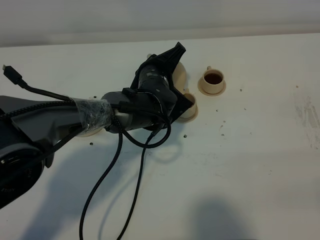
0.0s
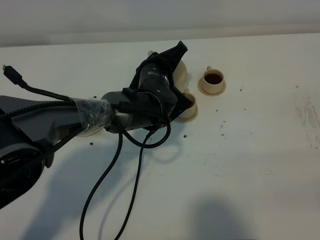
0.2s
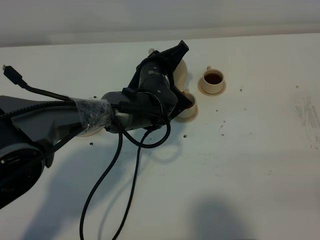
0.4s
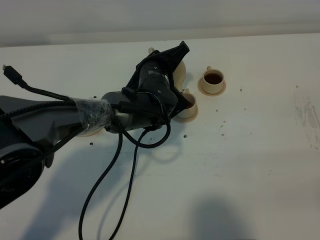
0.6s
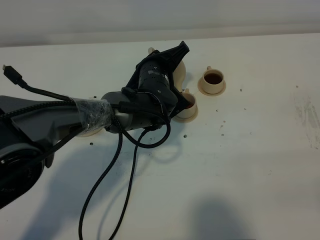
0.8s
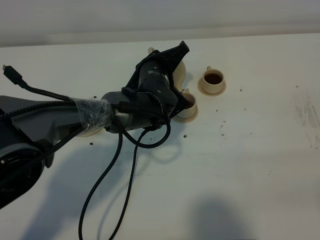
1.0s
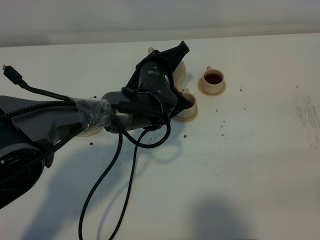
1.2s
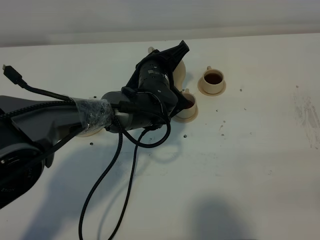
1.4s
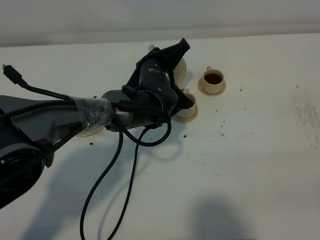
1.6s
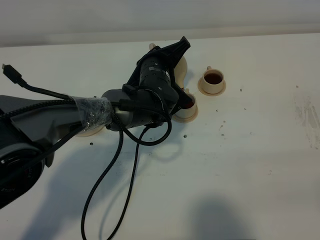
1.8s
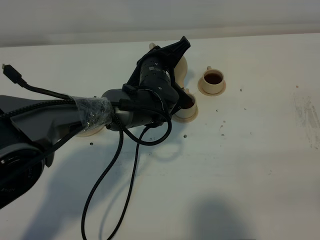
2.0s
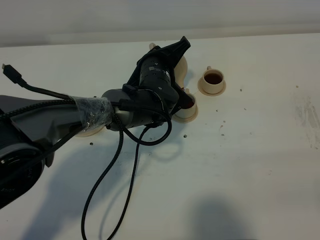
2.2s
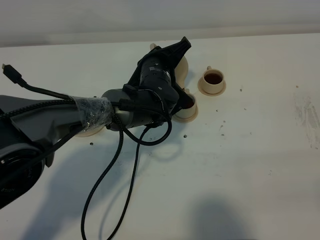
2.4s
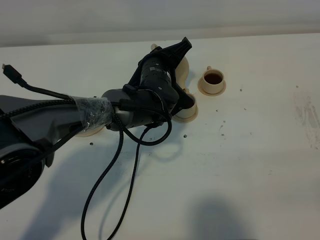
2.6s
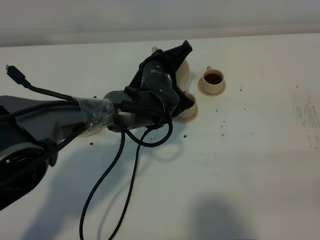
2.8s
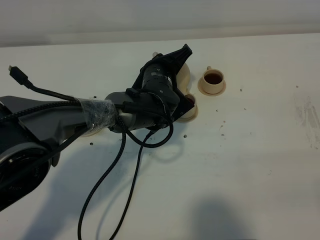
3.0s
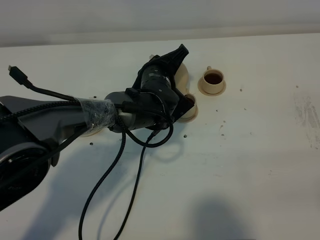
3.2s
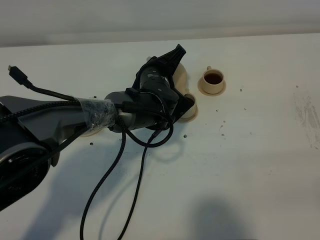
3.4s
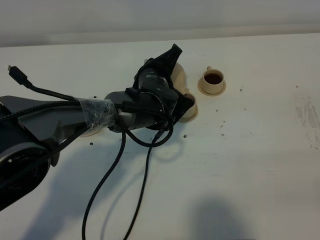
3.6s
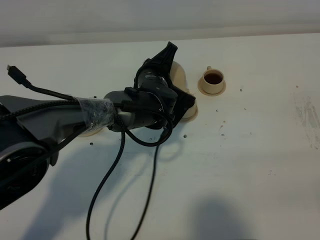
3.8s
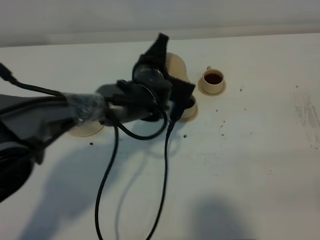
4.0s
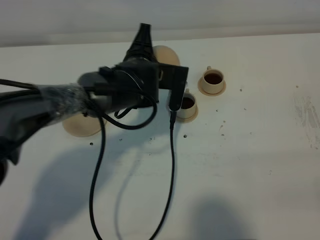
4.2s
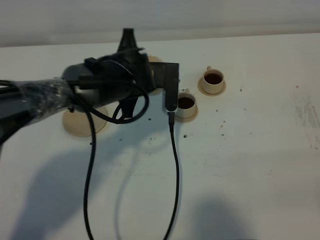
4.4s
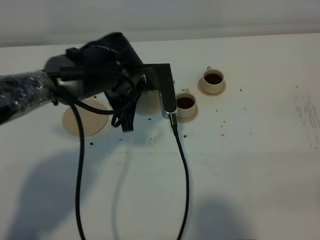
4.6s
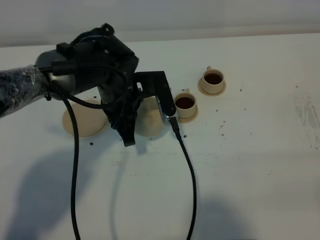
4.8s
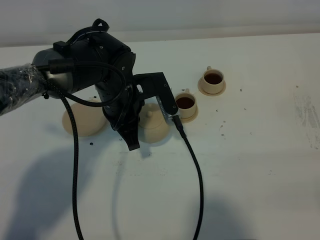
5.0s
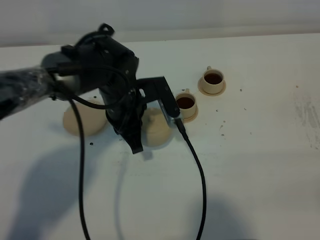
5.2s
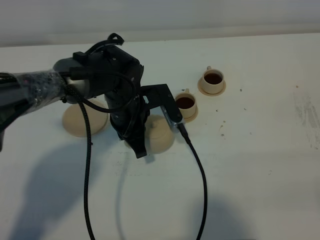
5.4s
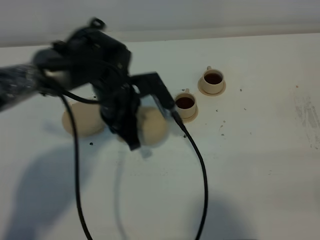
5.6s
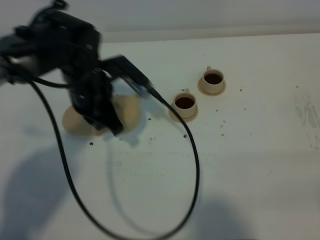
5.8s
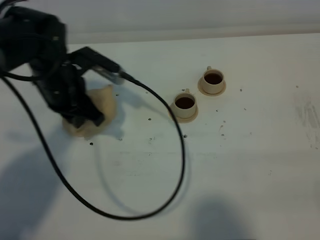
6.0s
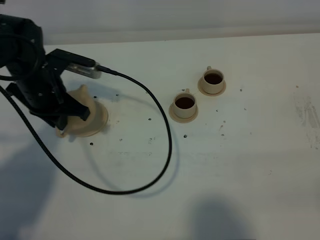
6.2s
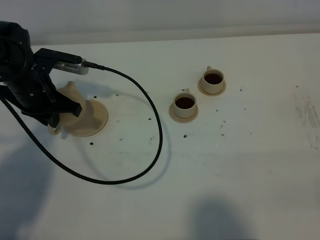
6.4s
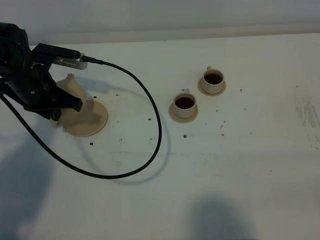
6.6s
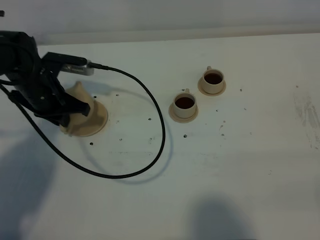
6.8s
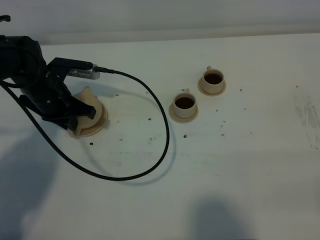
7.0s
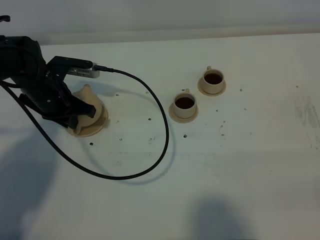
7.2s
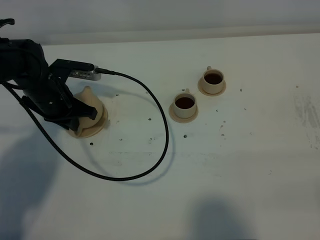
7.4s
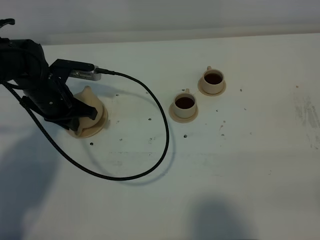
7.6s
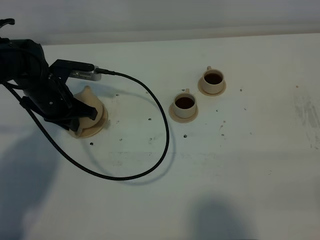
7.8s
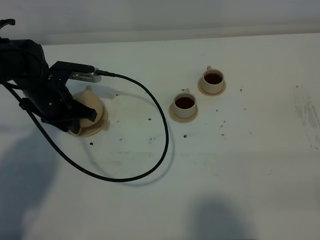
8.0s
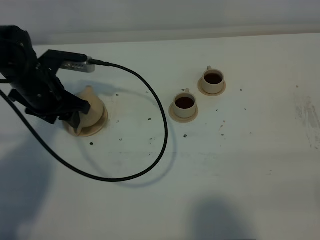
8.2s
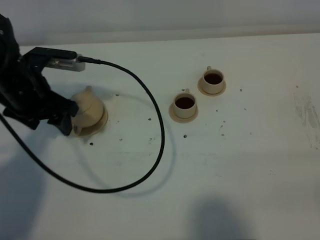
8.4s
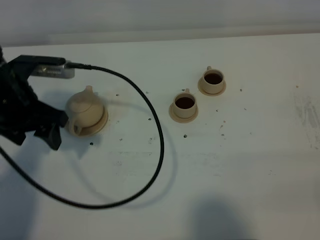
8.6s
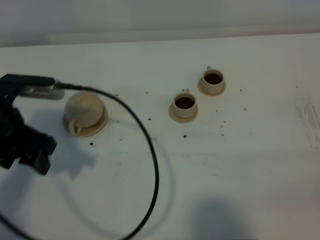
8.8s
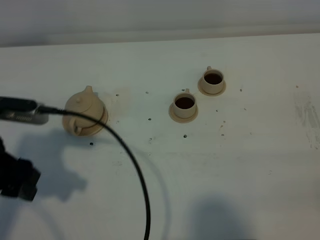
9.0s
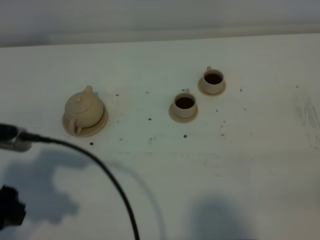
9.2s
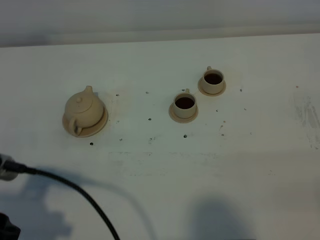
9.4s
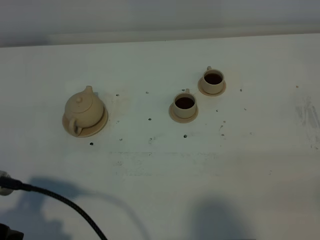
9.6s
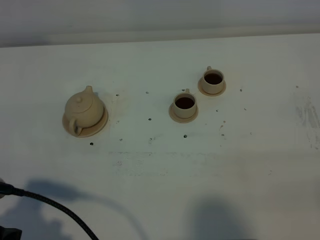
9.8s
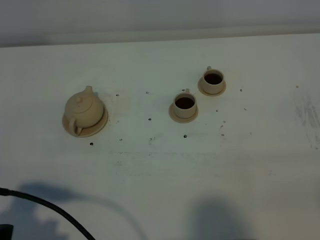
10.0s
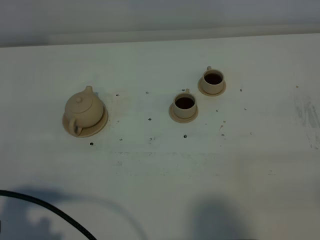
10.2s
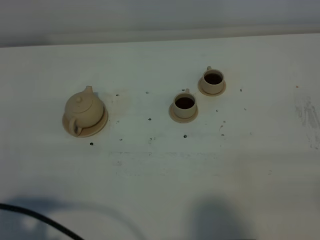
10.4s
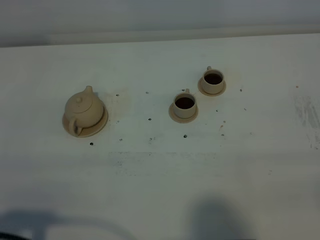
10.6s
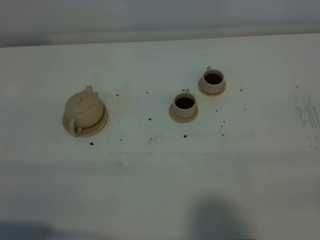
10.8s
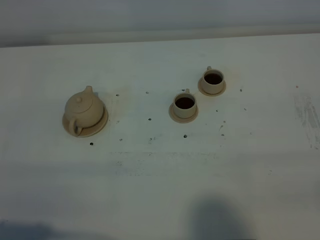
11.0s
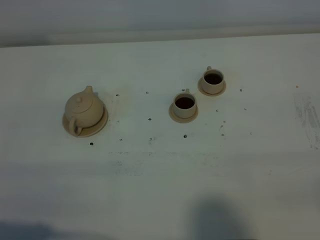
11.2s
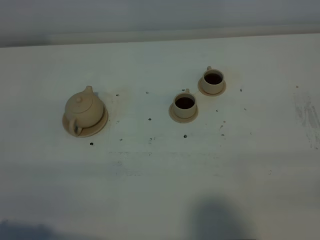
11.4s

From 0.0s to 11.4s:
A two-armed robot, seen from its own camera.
Task of the whole recording: grasp the brown teapot and pour the tea into the two brown teacups one by one, put the brown teapot back in its original place.
Step, from 0.0s to 4.2s: Pour tea into the teacup with the left gripper.
From 0.0s to 1.4s: There are only small adjustments of the grippers.
From 1.4s to 2.8s: The two grippers keep their place.
From 2.8s to 4.2s: The left gripper changes place by roughly 5 cm.
From 4.2s to 5.6s: The left gripper travels to the left by approximately 5 cm.
From 5.6s to 7.2s: The left gripper travels to the left by roughly 15 cm.
From 7.2s to 8.6s: The left gripper shifts roughly 15 cm upward and backward, and opens.
From 8.6s to 10.0s: The left gripper travels backward by about 20 cm.
From 10.0s to 11.4s: The left gripper shifts roughly 5 cm backward.

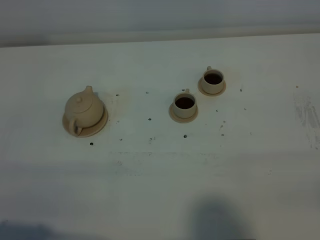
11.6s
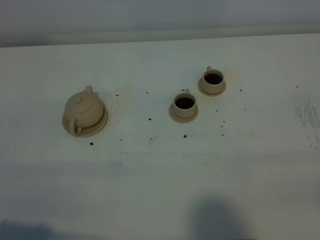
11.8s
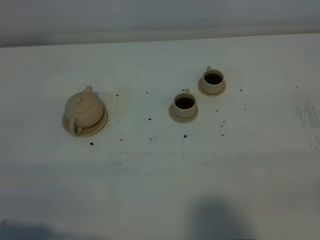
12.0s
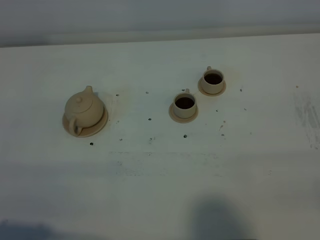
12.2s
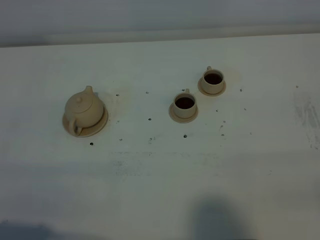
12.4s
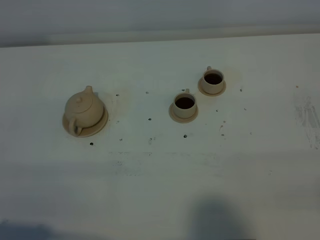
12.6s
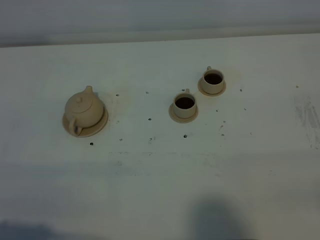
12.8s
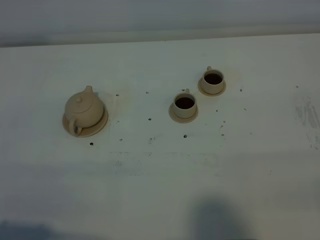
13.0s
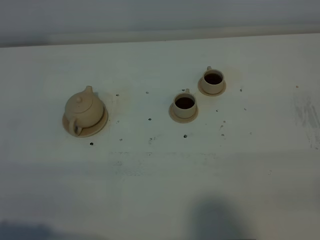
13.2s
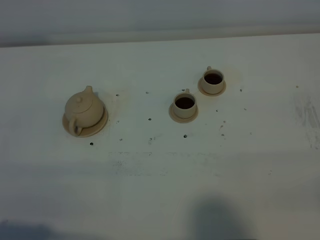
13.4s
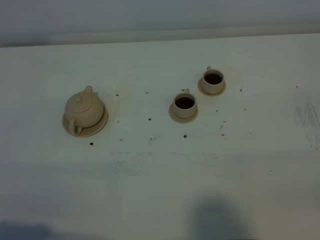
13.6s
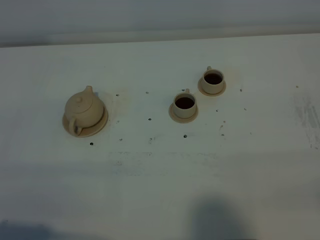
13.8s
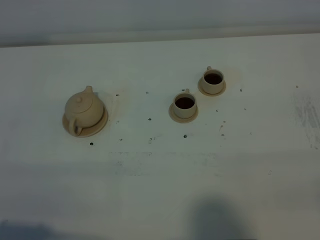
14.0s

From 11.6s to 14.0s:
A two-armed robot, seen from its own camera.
Task of the whole recording: grasp the brown teapot and pour the tea into the two brown teacups one by one, put the brown teapot back in its original place.
From 11.6s to 14.0s: Both grippers stay put.

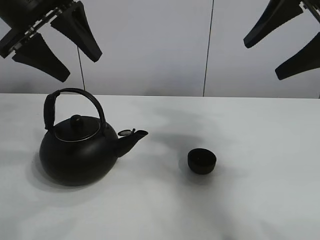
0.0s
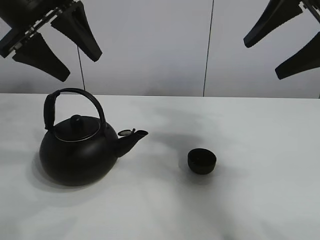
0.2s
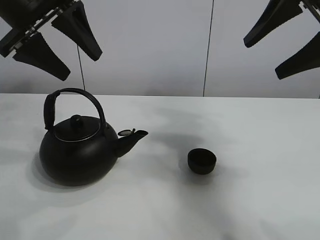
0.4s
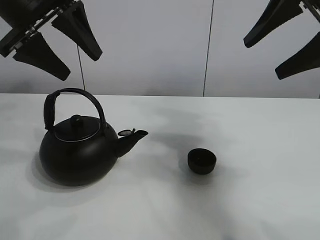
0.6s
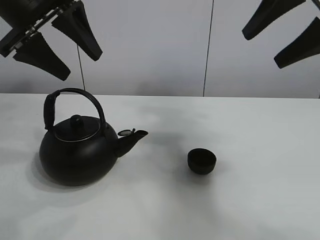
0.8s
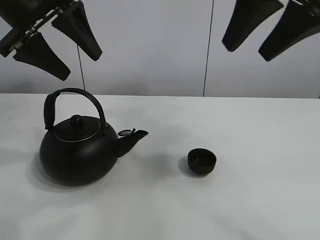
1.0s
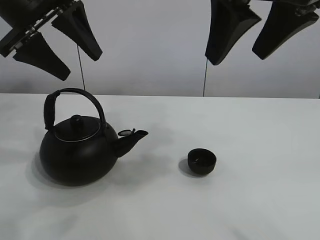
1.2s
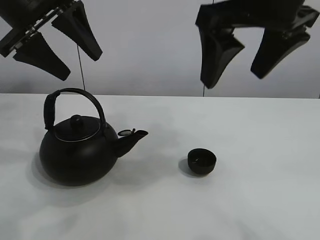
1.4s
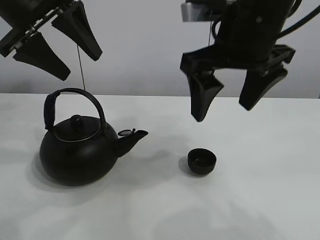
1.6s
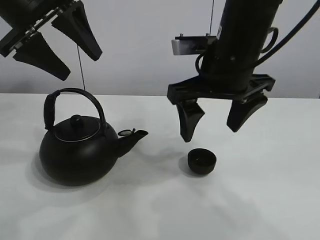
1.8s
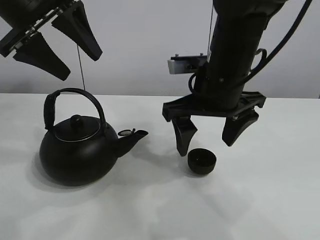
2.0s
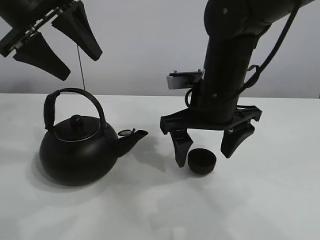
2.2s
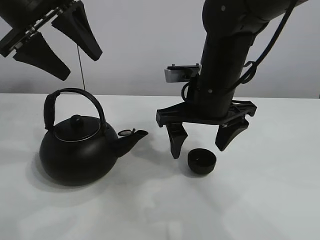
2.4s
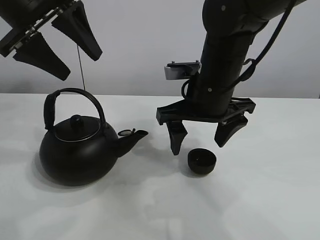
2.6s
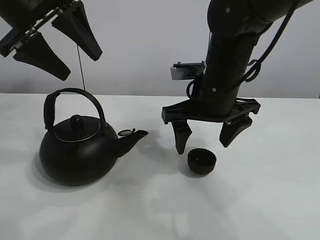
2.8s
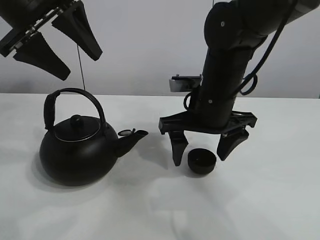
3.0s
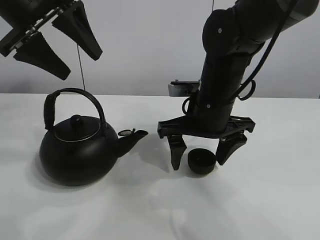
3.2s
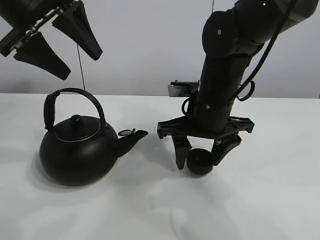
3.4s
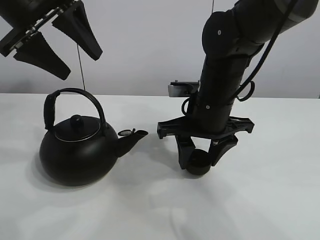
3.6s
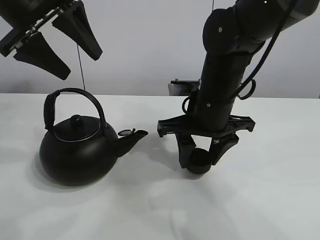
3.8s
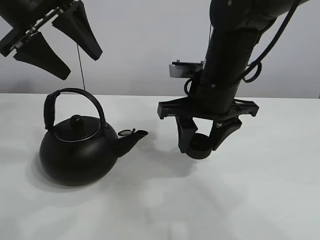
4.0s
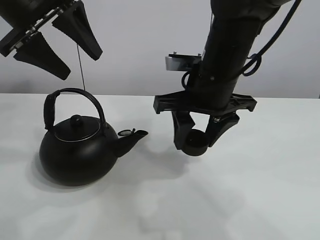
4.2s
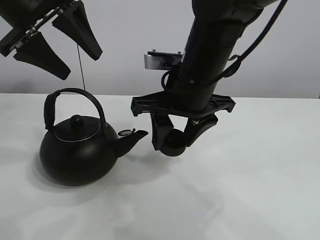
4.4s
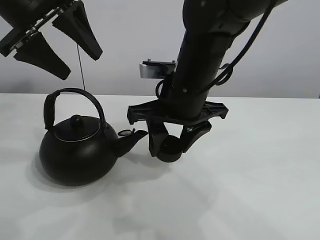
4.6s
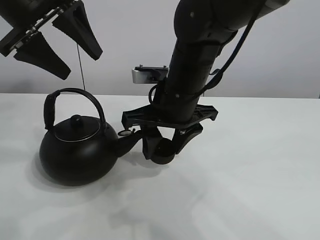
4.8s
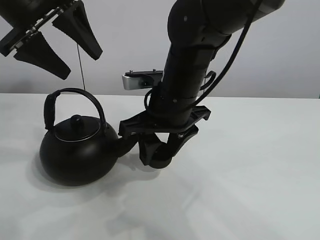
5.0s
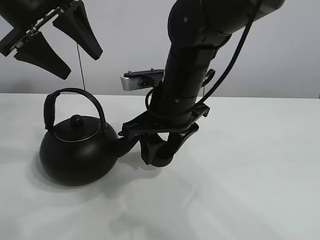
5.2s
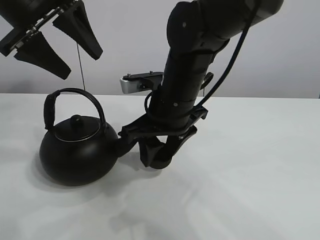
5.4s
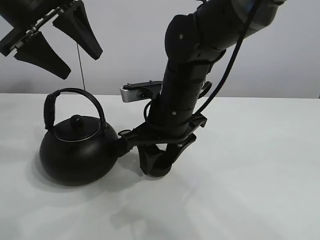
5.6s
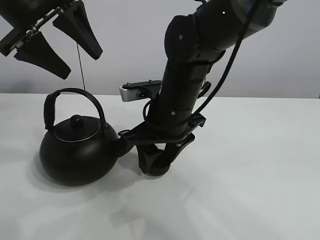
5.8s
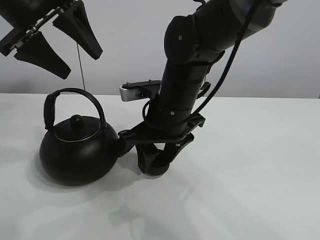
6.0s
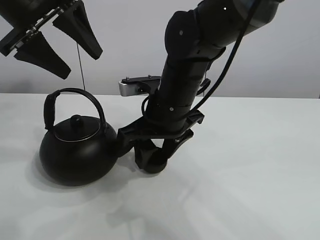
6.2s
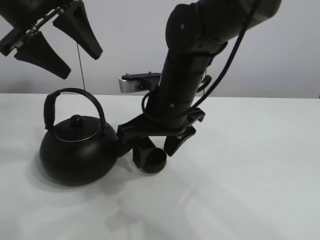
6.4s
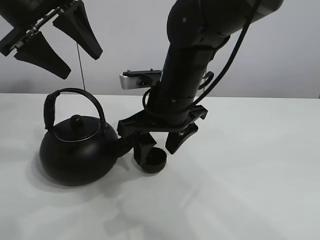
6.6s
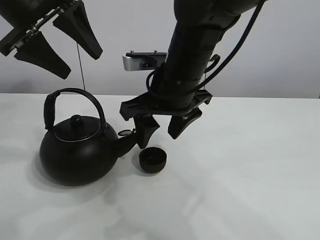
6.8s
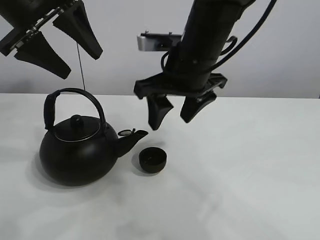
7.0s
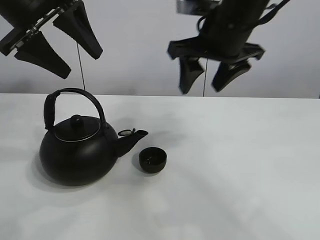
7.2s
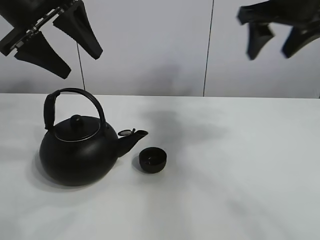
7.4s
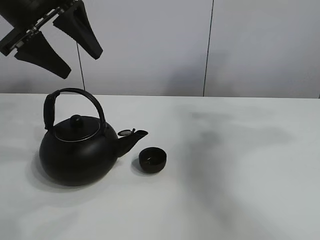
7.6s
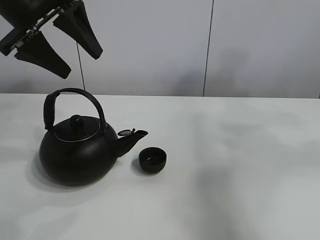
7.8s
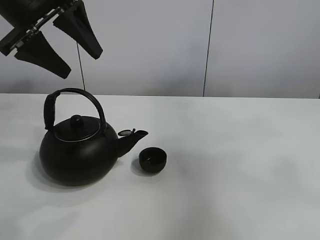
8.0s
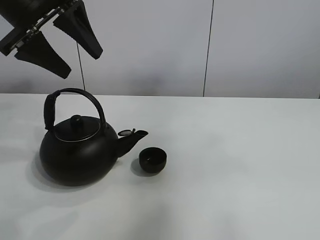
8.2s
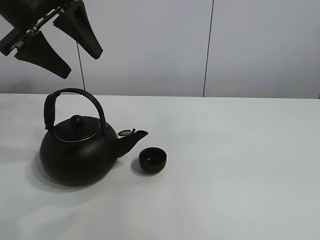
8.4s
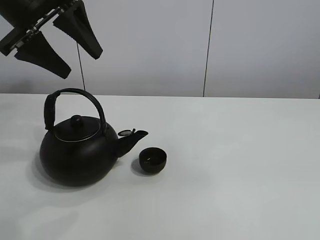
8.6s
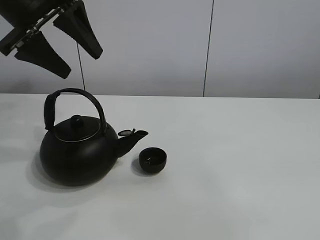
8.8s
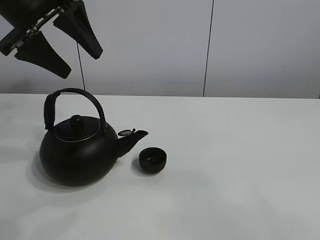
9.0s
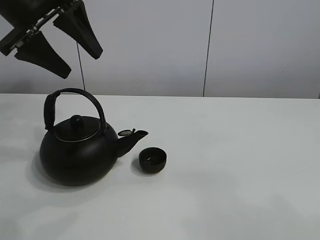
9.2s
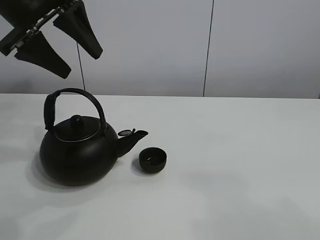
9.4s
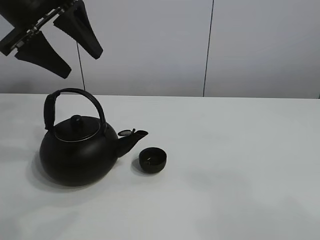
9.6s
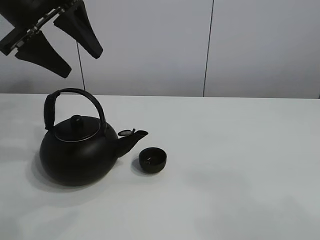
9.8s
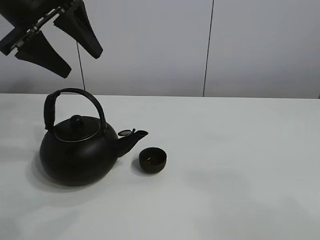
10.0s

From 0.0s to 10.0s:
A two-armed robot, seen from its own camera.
Task of the whole recording: pour tea into the teacup.
Step, from 0.0s to 3.6s: Pick up the teacup with the right gripper.
Step, from 3.8s to 6.4s: Place the teacup in the center of view with the right gripper.
From 1.4s to 2.8s: The right gripper is displaced downward and forward by some 15 cm.
From 2.8s to 4.2s: The right gripper closes its fingers.
From 4.2s to 5.8s: The right gripper goes approximately 10 cm to the left and downward.
From 5.8s to 7.2s: The right gripper goes roughly 15 cm upward and to the right, and opens up.
From 7.2s to 8.6s: The right gripper moves backward and upward, about 50 cm.
From 8.6s to 10.0s: The right gripper shifts some 20 cm downward and forward.
